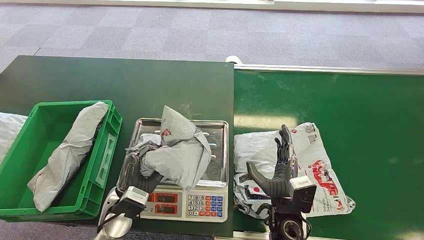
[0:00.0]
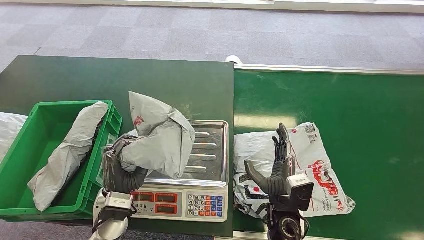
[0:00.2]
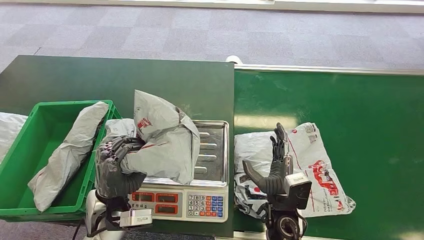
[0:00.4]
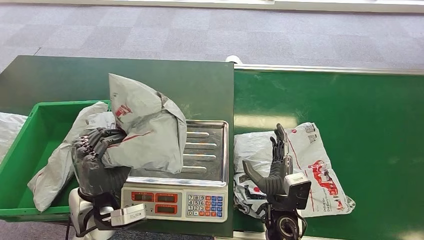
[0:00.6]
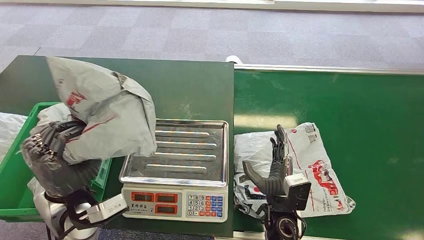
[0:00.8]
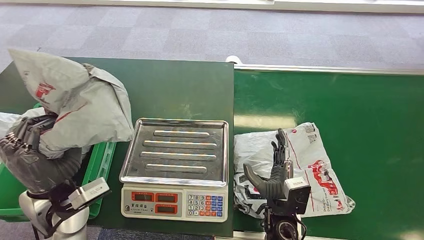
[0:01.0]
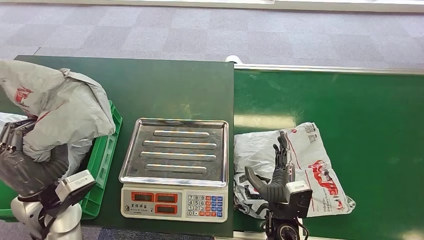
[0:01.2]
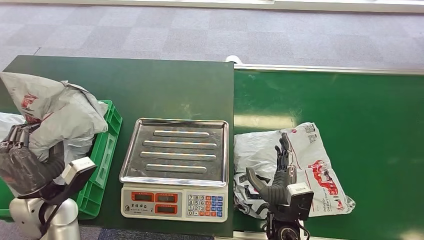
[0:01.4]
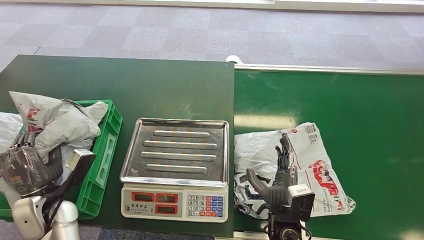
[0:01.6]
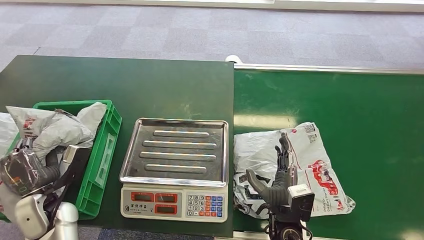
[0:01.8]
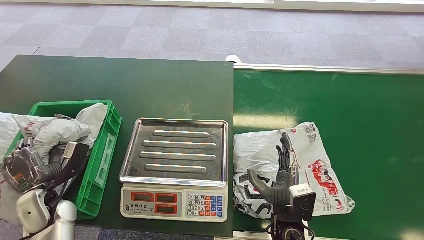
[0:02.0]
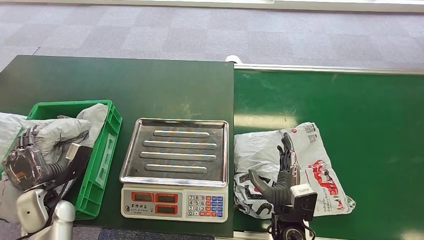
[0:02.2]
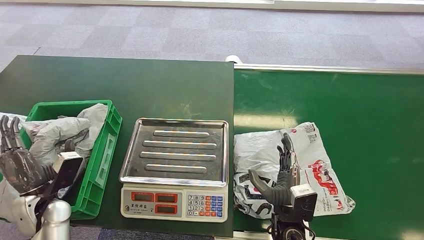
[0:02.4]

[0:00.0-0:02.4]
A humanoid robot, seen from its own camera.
Step, 0:00.4 to 0:02.4: Place the package into the parcel locker.
0:00.0 to 0:01.2: The left hand heads upward and to the left, covering about 15 cm.
0:01.2 to 0:02.4: The left hand goes roughly 10 cm downward and to the left.

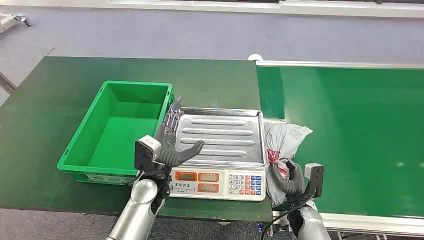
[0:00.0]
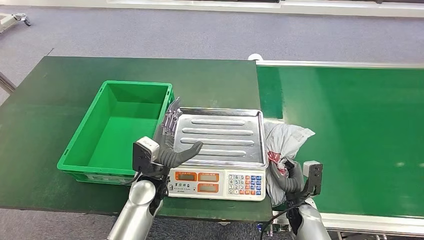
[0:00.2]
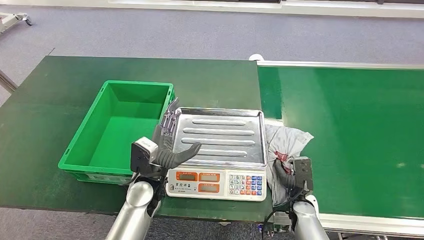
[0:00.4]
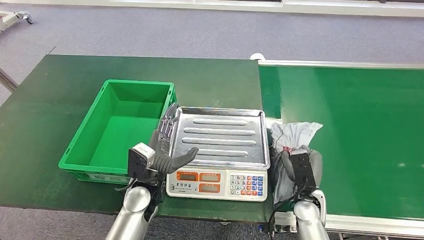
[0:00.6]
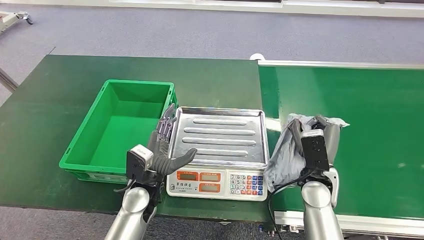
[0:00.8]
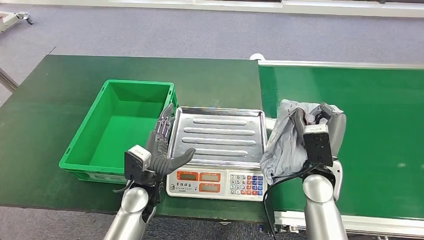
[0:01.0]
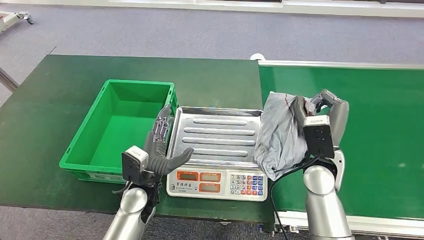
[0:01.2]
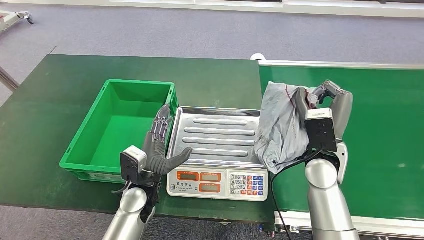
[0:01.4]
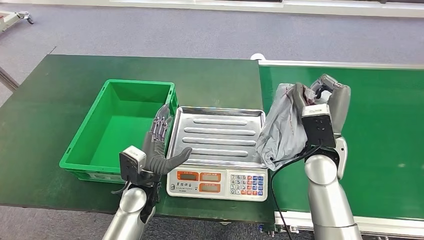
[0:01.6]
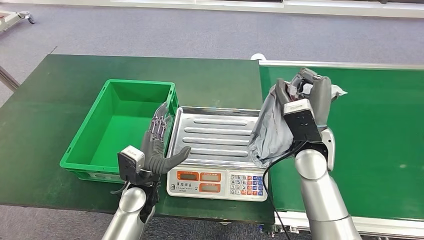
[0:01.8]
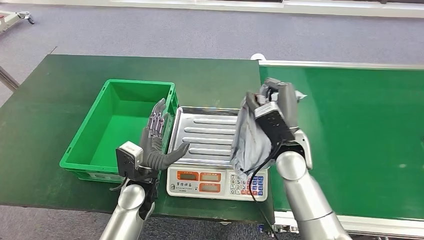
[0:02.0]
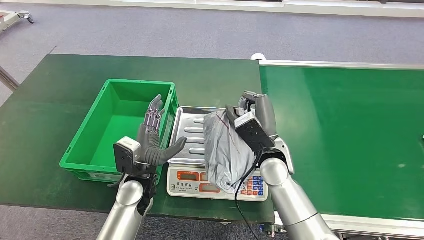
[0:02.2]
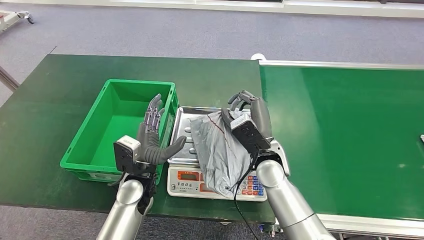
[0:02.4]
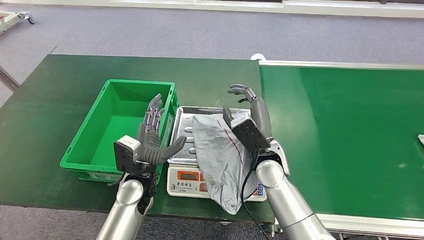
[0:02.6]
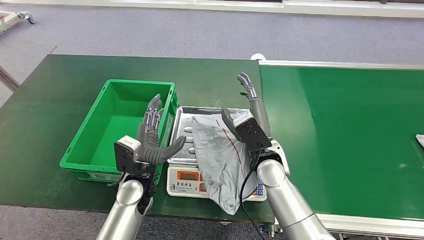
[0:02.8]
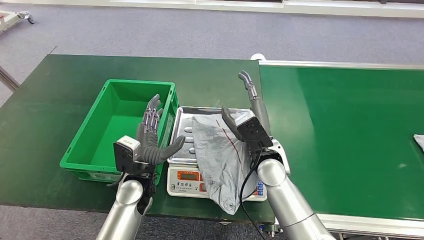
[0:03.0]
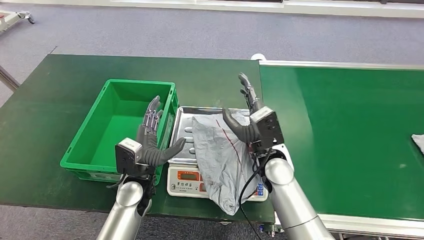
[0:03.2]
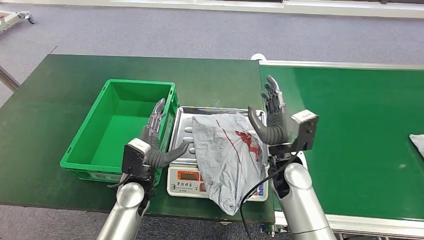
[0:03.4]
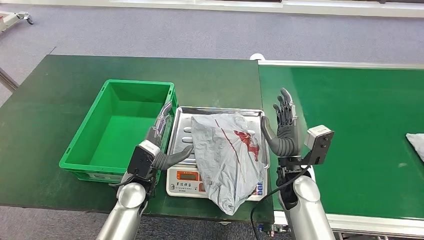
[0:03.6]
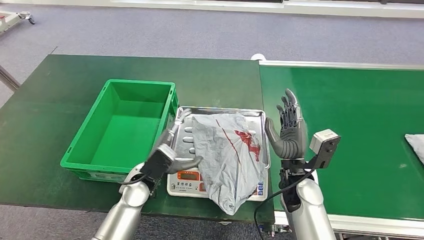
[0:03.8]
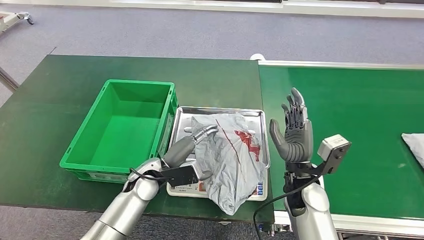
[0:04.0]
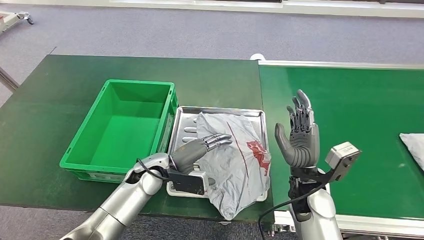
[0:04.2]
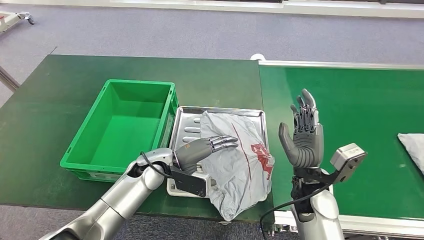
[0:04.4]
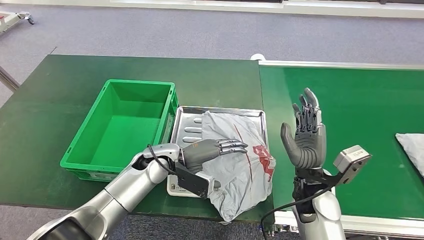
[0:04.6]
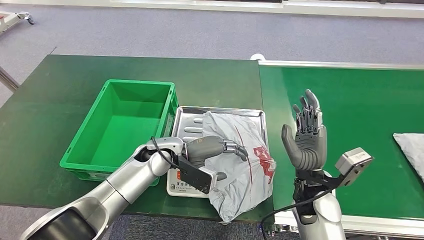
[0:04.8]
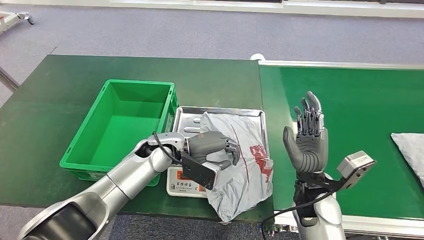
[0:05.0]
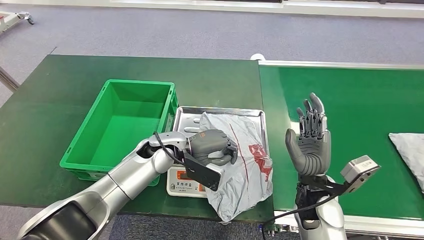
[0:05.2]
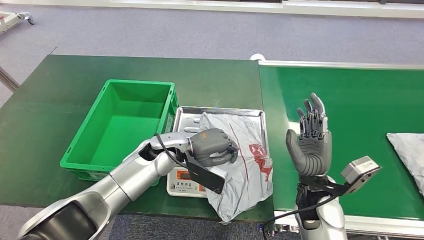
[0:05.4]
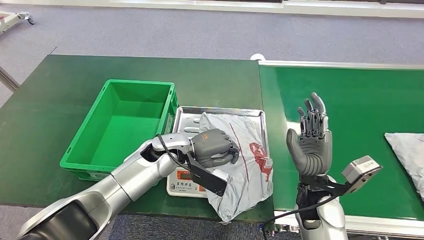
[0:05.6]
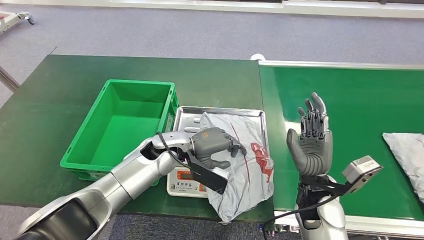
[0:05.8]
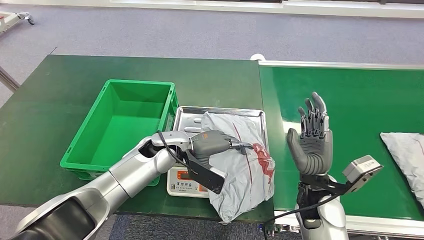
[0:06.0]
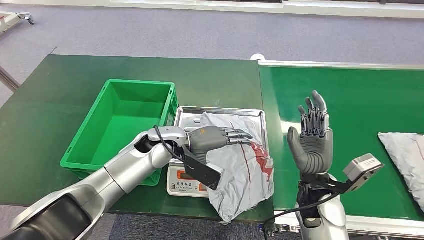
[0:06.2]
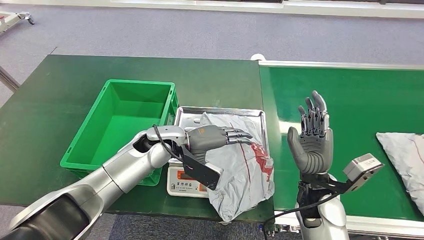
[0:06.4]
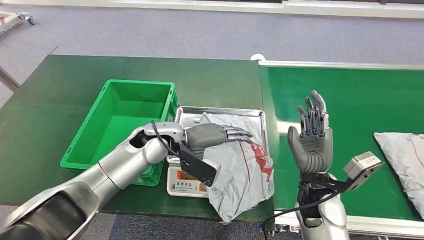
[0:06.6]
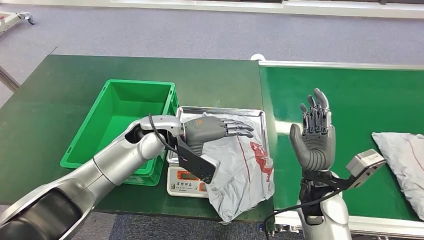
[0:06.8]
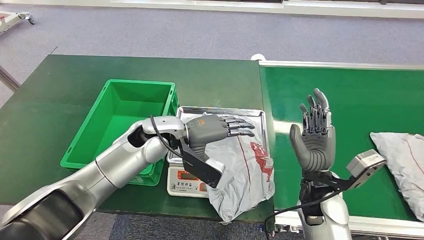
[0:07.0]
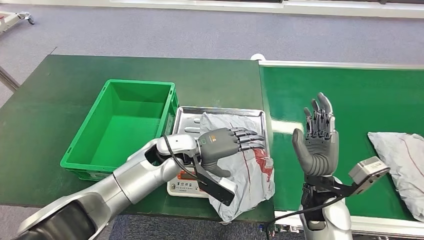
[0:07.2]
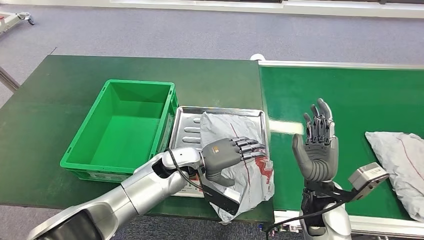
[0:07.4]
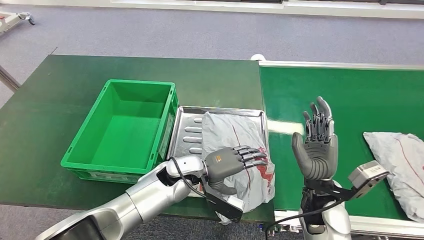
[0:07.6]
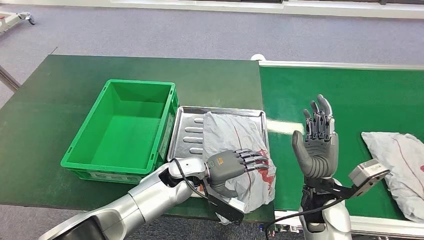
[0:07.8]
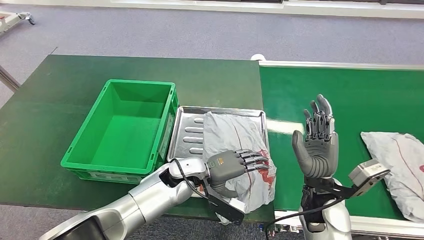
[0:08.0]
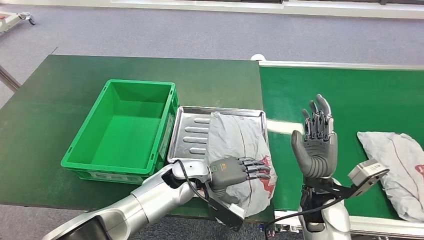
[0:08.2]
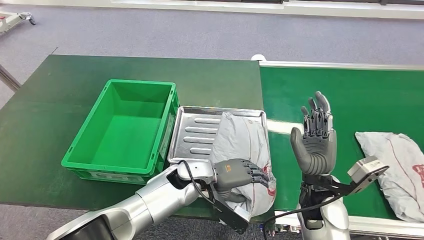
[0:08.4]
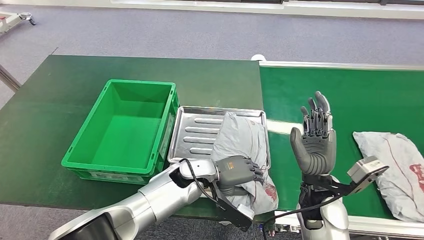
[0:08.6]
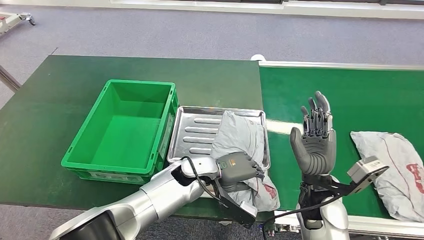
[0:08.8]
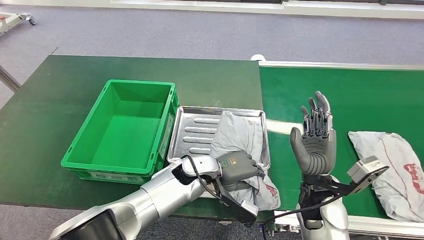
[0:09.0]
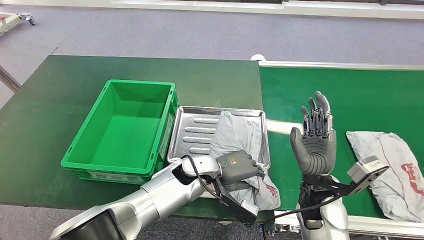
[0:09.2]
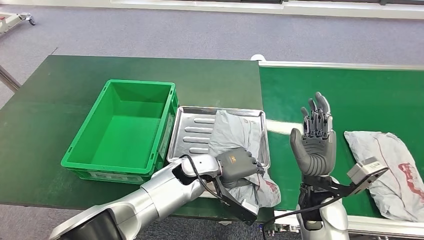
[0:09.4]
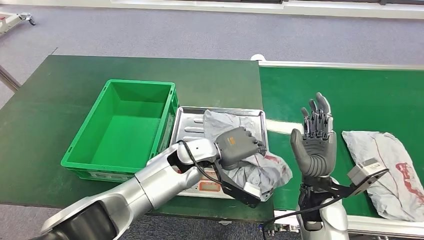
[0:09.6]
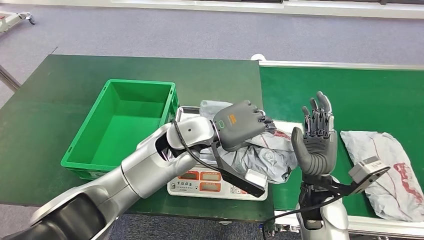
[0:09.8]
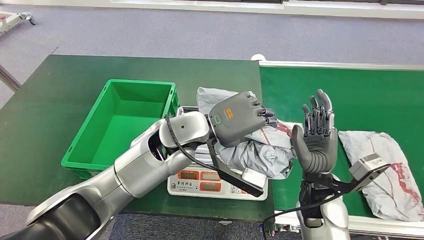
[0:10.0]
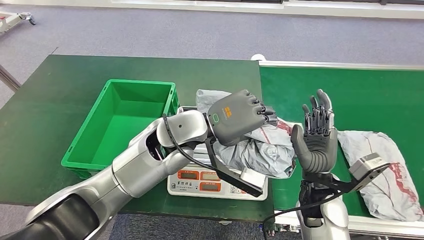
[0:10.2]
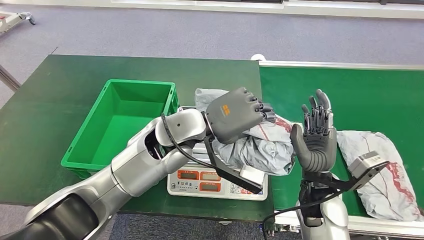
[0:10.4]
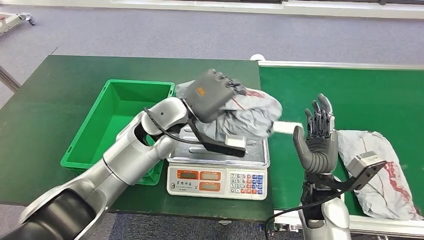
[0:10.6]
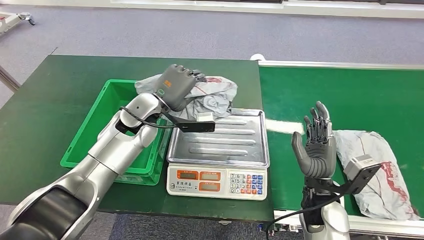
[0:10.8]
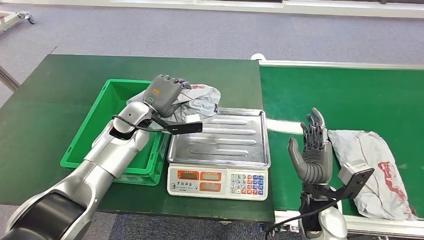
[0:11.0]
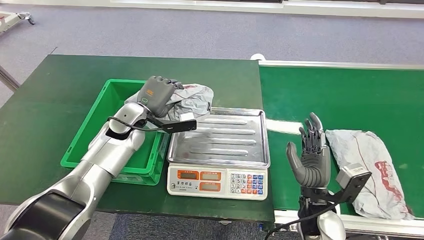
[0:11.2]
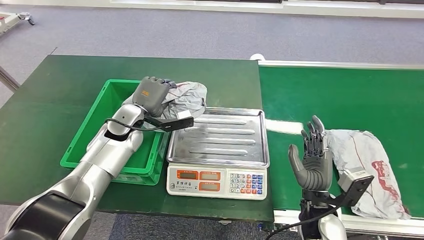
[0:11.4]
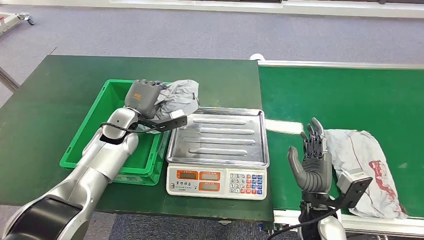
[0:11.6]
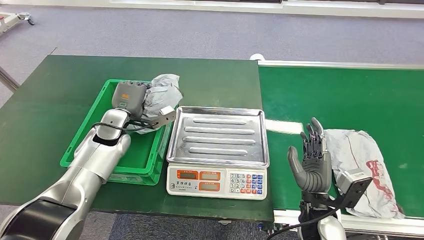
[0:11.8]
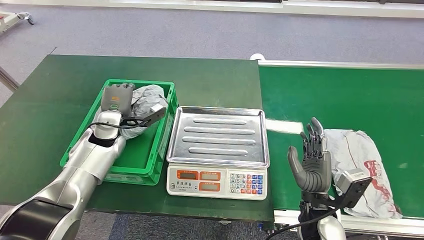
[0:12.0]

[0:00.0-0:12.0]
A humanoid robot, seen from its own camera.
Step, 0:00.0 to 0:00.8: Pick up the package from the conveyor belt.
Step, 0:01.2 to 0:03.8: Place the package onto the inbound machine.
Step, 0:04.0 to 0:10.4: Pick up the package from the inbound machine.
0:03.0 to 0:04.4: The right hand is displaced to the right and backward by about 10 cm; the left hand heads forward, covering approximately 5 cm.
0:04.4 to 0:06.0: The left hand goes some 5 cm upward.
0:07.6 to 0:09.0: The hands move only a little.

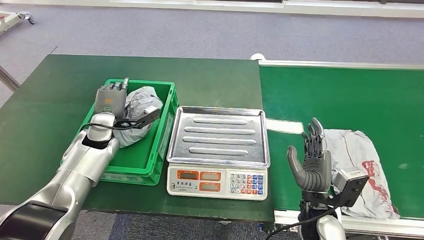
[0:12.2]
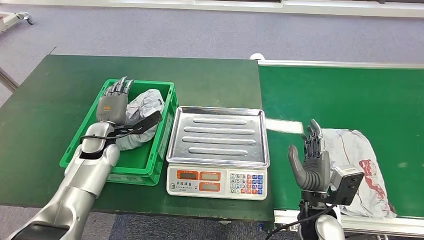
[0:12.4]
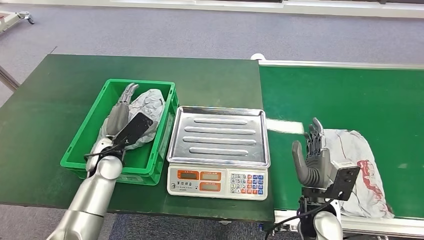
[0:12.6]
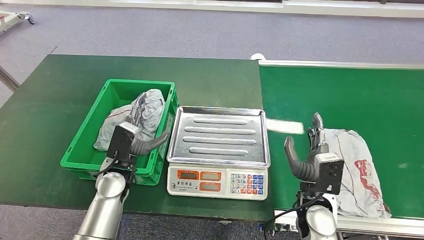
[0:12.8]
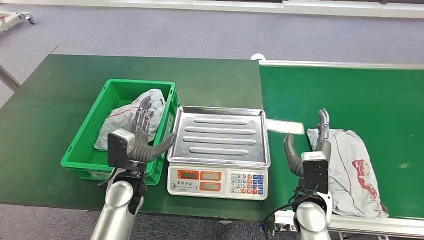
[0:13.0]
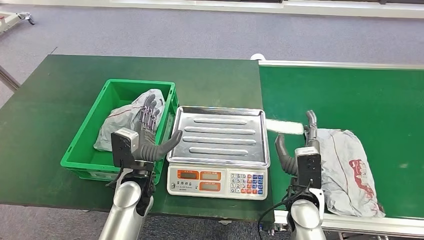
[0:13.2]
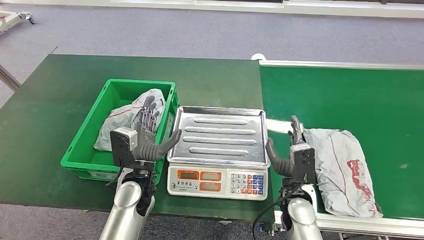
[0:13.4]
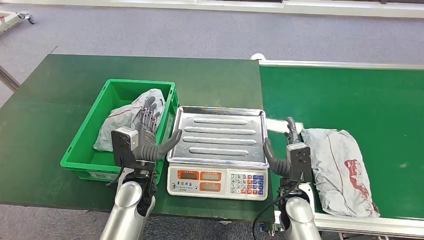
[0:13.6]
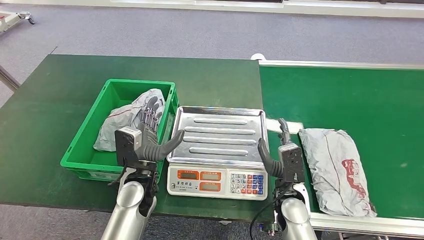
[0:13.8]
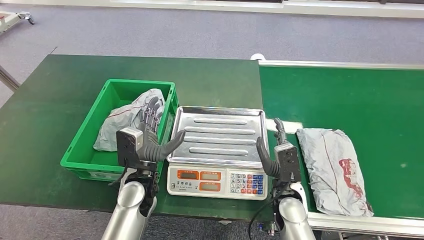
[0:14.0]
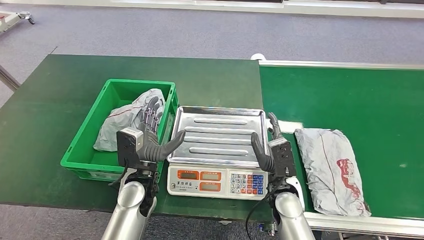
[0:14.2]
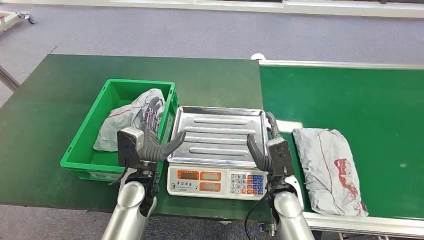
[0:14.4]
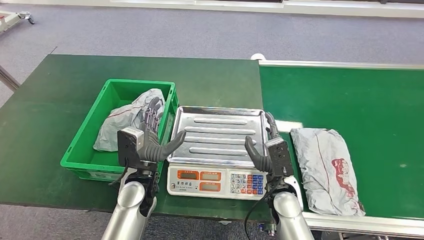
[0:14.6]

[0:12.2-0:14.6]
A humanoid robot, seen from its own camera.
Step, 0:12.2 to 0:14.6: Place the package into the parcel locker.
0:13.4 to 0:14.6: The hands move only a little.
